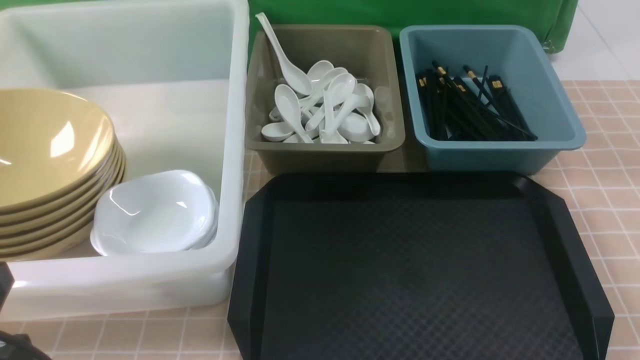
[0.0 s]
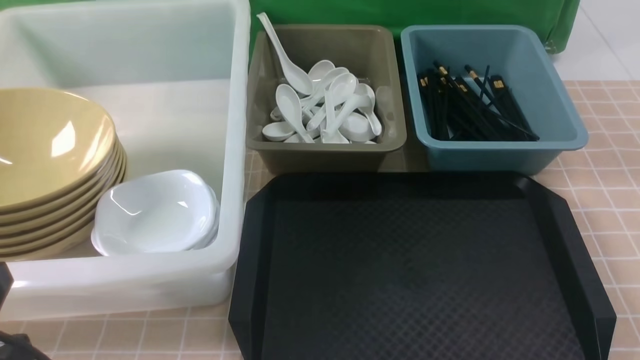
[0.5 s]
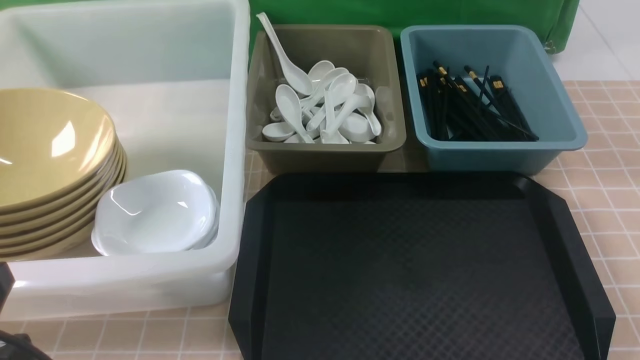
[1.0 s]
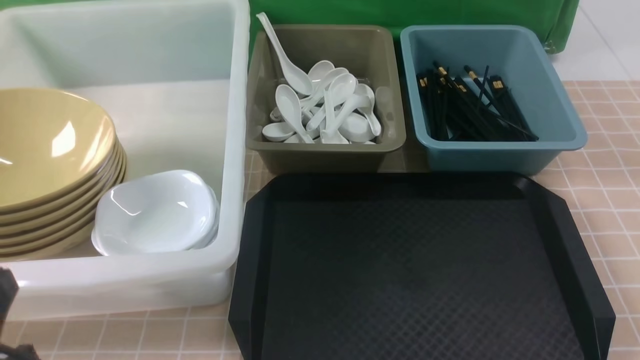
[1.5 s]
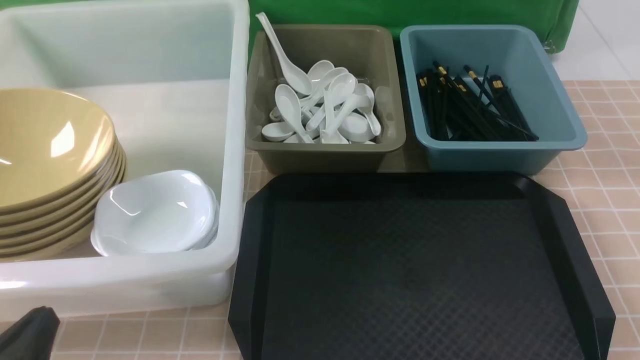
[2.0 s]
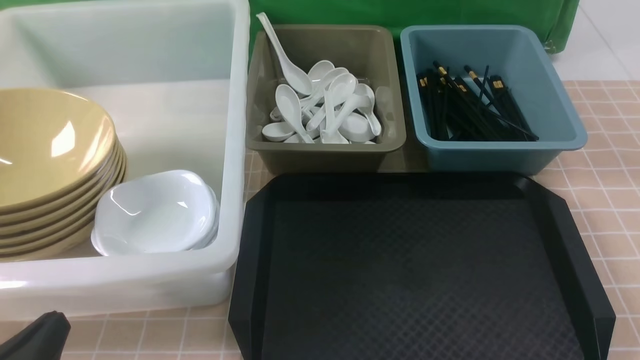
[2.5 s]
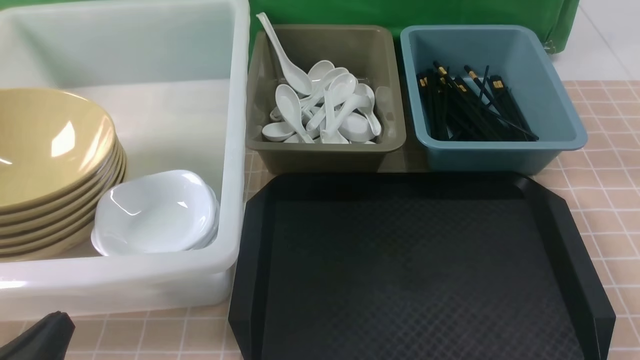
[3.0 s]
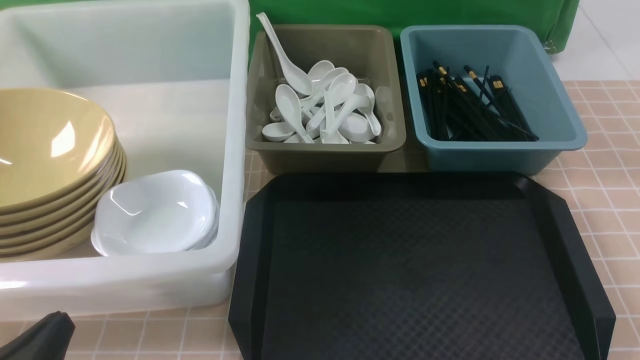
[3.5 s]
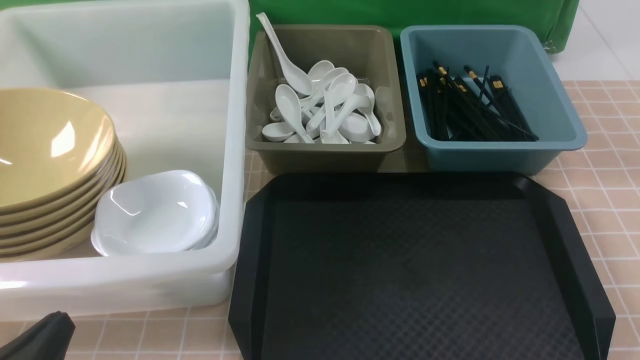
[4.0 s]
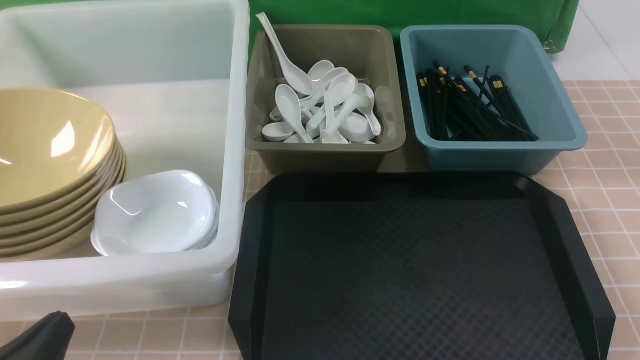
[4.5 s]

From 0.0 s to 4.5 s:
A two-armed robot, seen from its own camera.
Task of the whole recording: on brown table put chopsticks spoon bowls plates into blue grey white boxes.
From 0.0 s to 2.0 s: The left gripper shifts approximately 10 cm downward.
